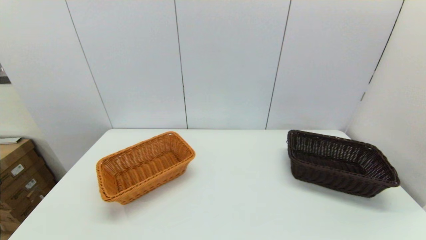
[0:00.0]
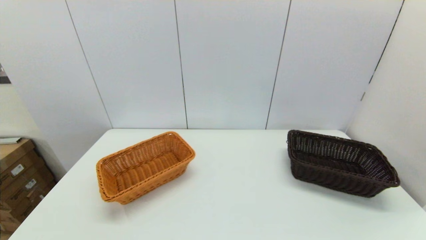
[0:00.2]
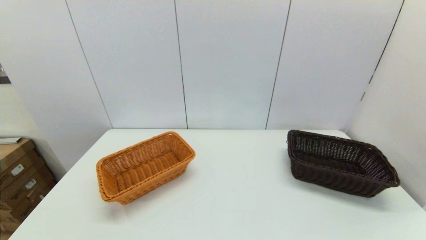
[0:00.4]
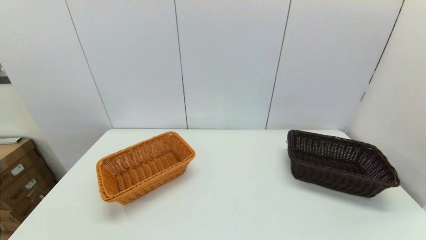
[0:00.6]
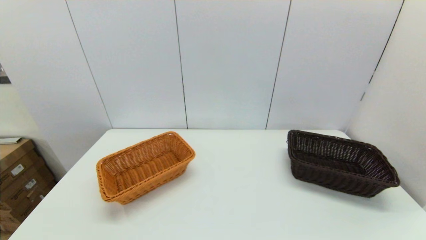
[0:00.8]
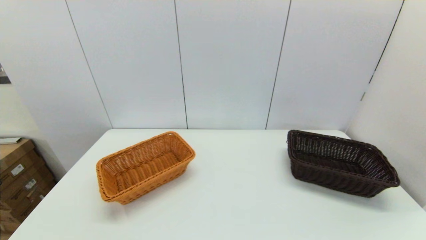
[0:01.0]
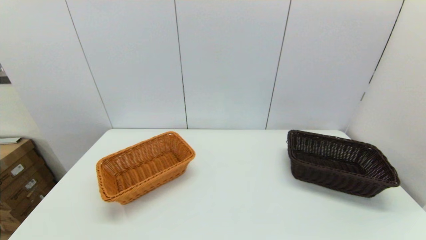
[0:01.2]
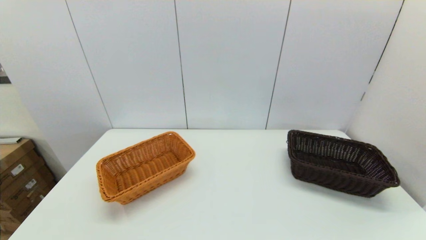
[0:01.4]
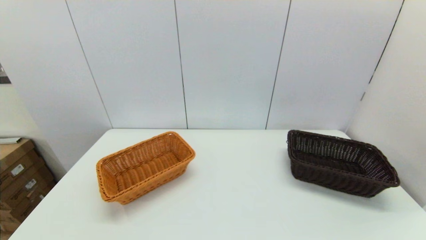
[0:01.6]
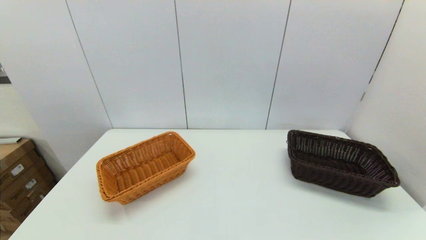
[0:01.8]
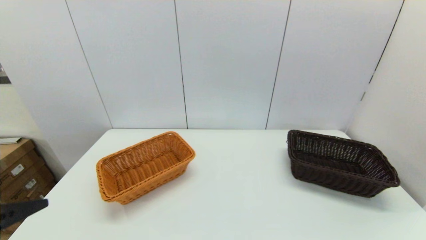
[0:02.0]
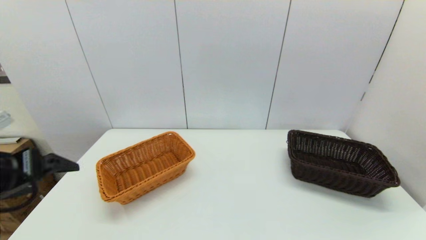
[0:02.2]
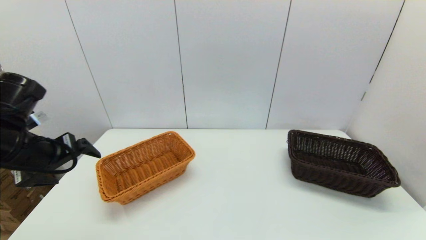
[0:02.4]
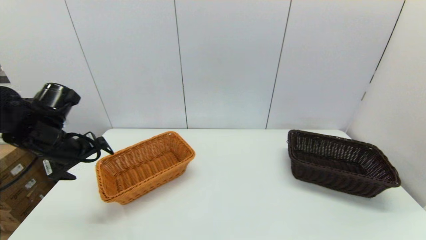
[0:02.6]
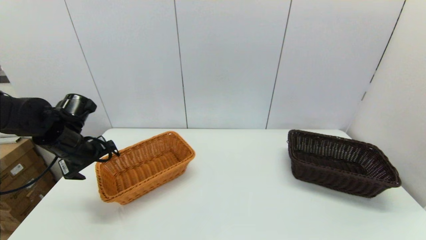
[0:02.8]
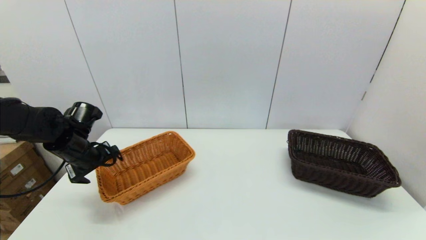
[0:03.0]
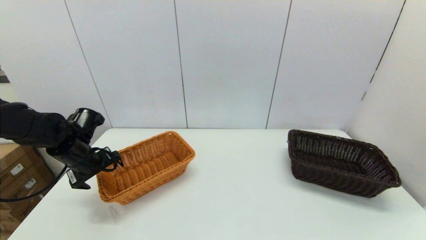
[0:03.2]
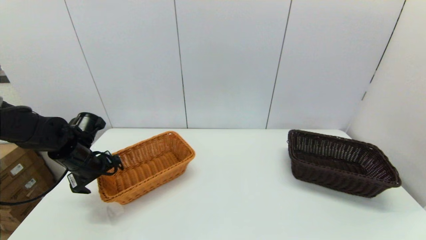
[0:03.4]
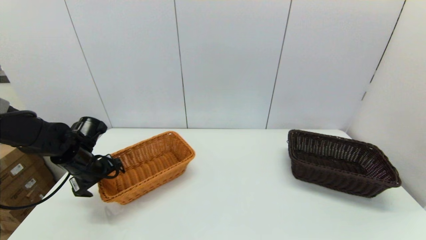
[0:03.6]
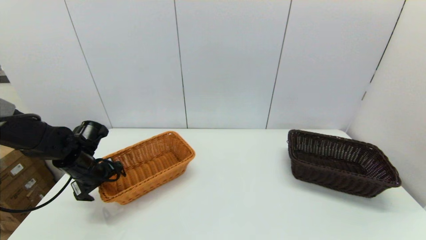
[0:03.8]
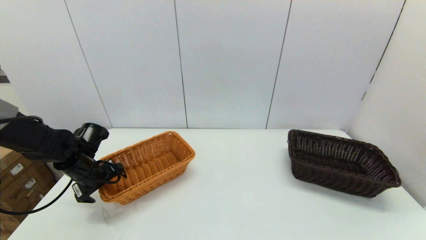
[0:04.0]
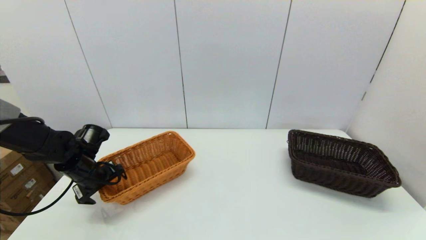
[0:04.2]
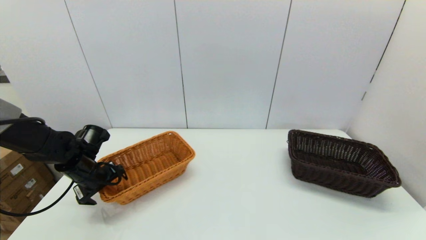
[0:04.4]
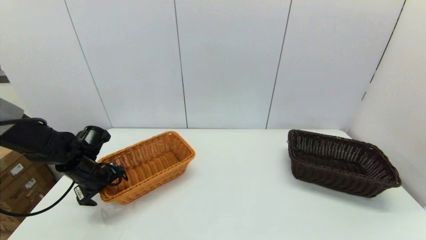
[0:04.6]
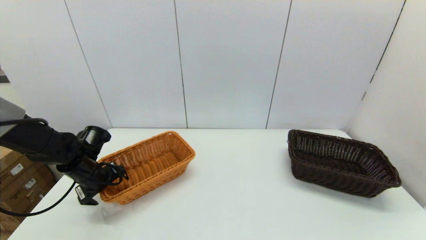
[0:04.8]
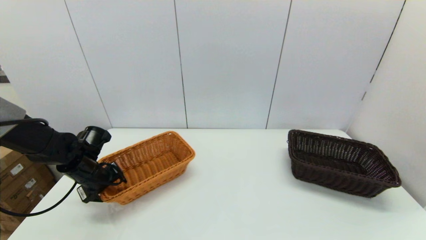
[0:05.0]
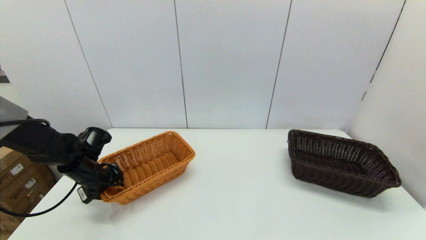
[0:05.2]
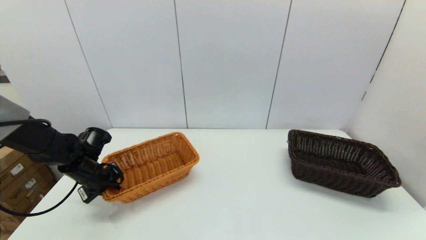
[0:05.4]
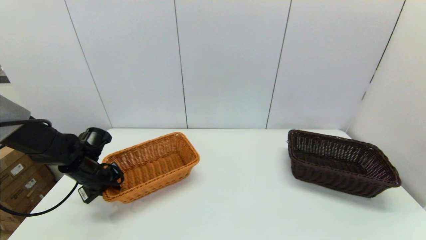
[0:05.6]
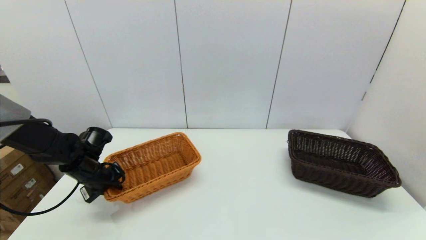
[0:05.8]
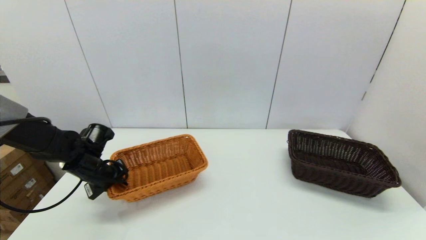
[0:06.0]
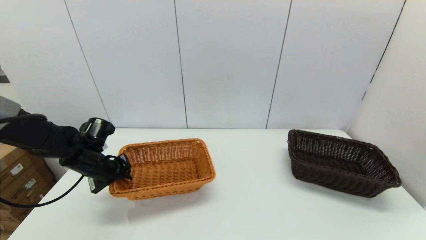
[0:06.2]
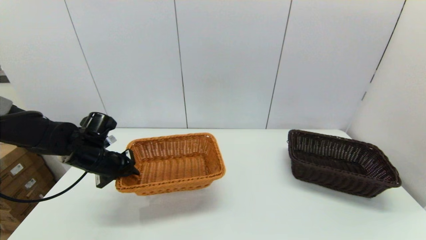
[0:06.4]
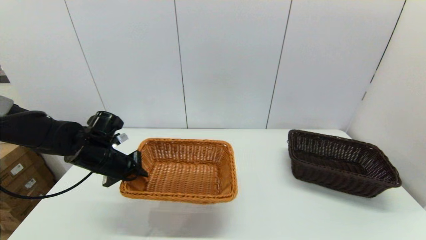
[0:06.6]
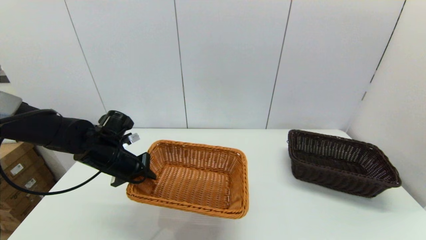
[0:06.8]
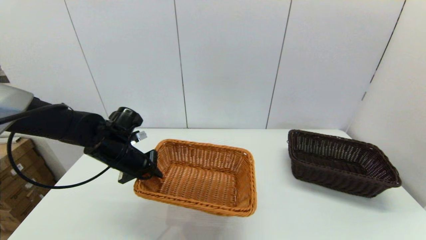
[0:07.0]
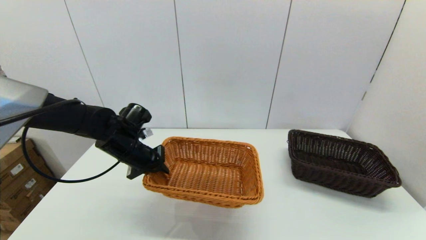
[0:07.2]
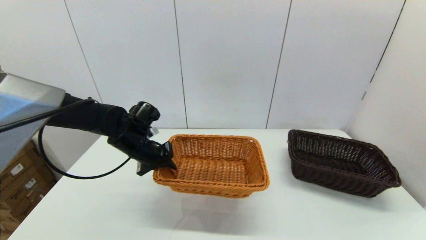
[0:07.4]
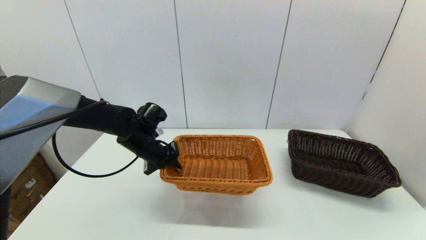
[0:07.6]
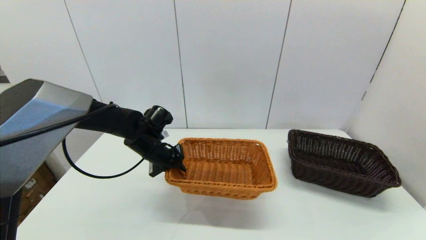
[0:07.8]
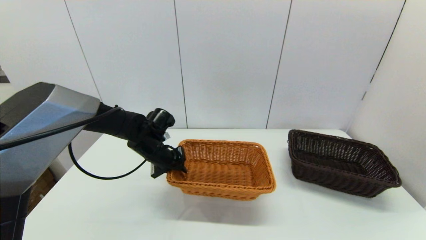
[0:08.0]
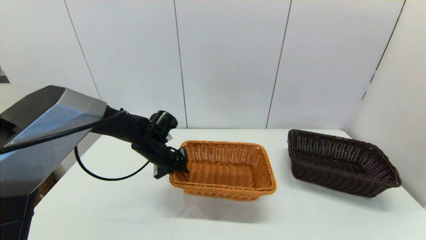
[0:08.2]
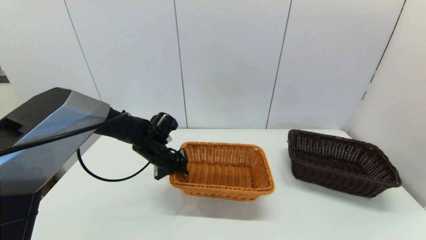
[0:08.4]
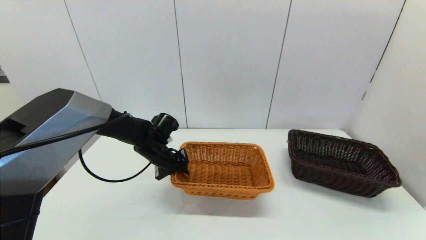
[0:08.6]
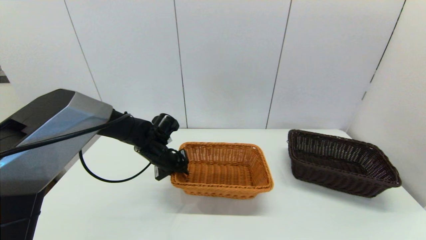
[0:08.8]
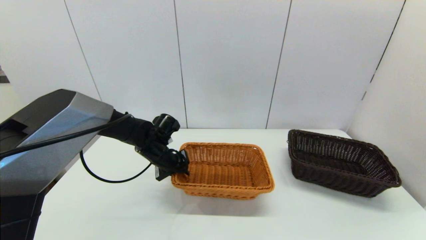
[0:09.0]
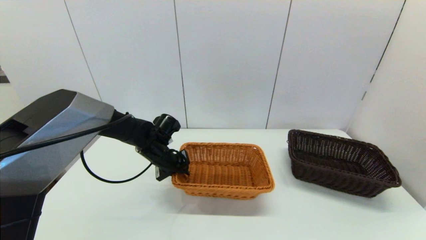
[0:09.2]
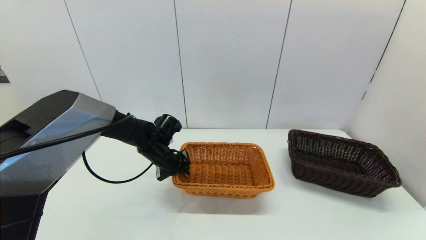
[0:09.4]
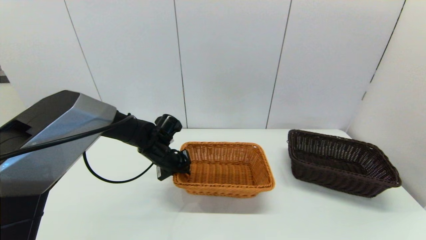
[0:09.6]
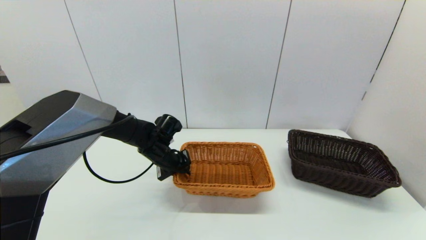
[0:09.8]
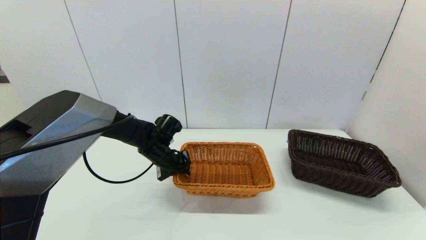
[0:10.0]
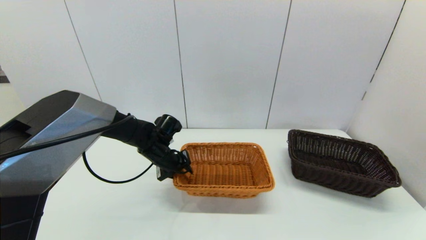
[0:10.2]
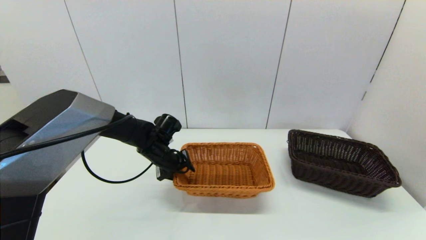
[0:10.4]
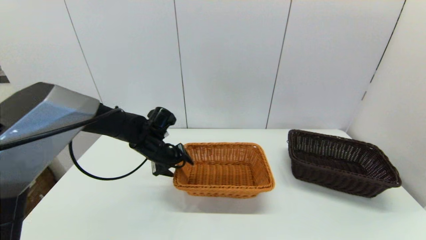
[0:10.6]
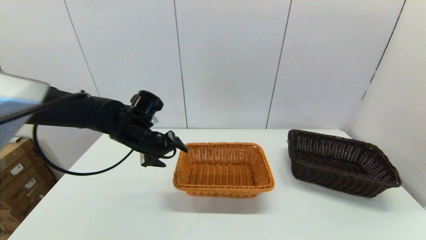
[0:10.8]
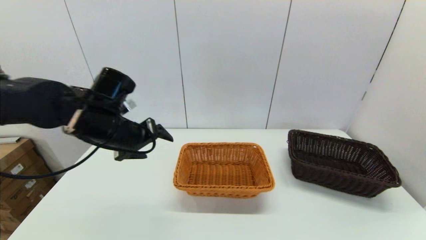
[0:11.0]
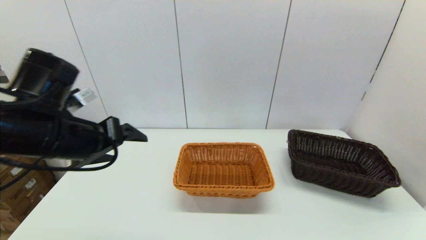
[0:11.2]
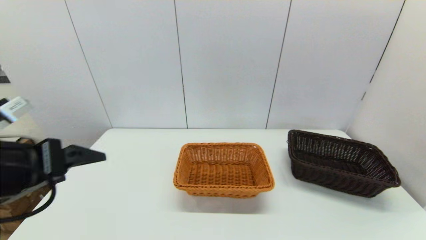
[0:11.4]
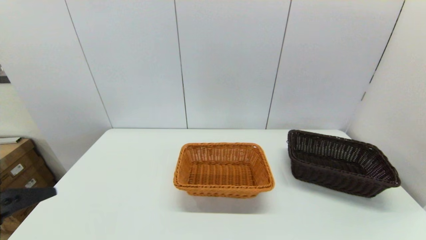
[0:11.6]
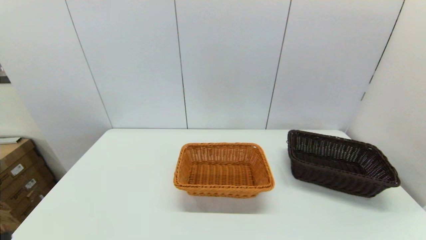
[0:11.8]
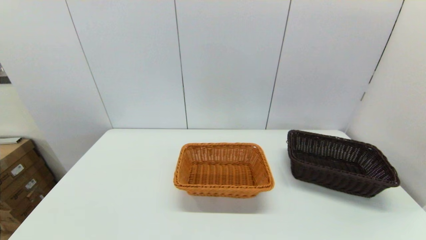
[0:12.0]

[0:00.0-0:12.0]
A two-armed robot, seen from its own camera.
Task of the whole recording: stack a basket on top of another basket.
Step, 0:02.0 to 0:05.2: Grasp the light basket with the left gripper.
Step, 0:05.6 to 0:10.6: Place the light basket on the middle of the table with the left gripper.
0:01.6 to 0:03.0: The left gripper is displaced forward by roughly 35 cm.
0:03.0 to 0:04.4: The left gripper goes some 5 cm downward.
0:04.4 to 0:06.0: The left gripper closes its fingers.
0:06.0 to 0:07.6: The left gripper shifts roughly 15 cm to the right.
0:07.6 to 0:09.0: The grippers move only a little.
0:09.0 to 0:10.4: The left gripper opens up.
0:10.4 to 0:12.0: The left gripper shifts roughly 40 cm backward, and opens its fingers.

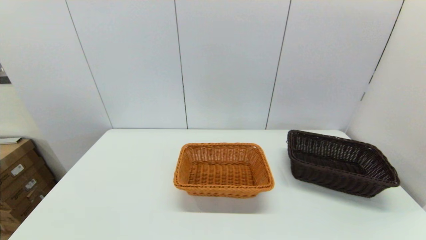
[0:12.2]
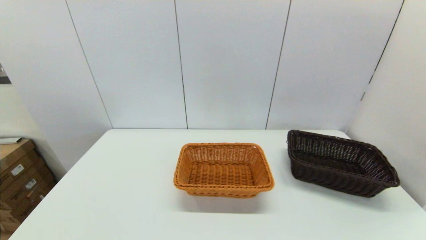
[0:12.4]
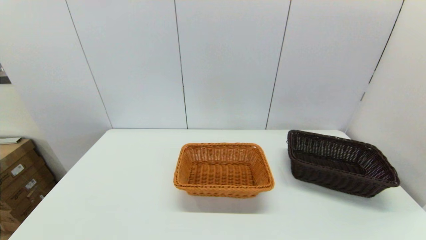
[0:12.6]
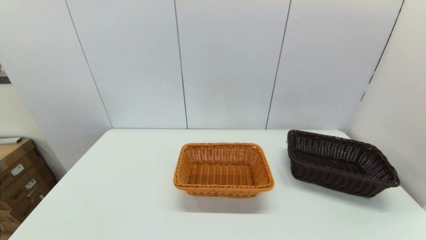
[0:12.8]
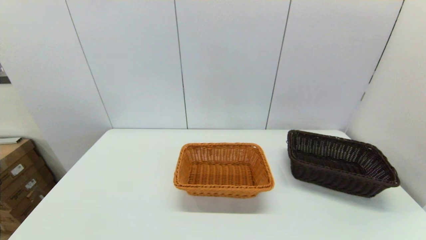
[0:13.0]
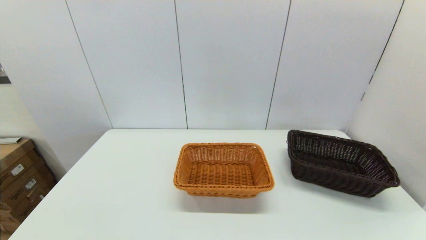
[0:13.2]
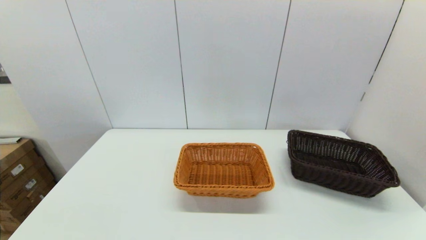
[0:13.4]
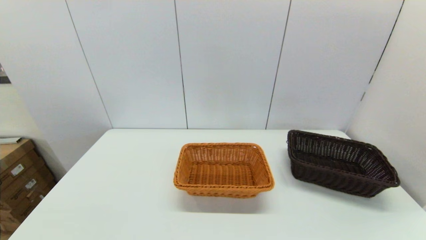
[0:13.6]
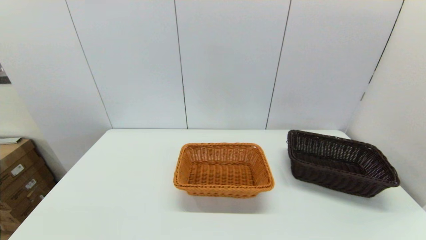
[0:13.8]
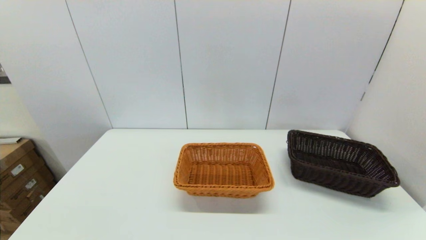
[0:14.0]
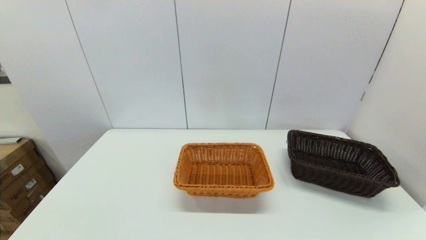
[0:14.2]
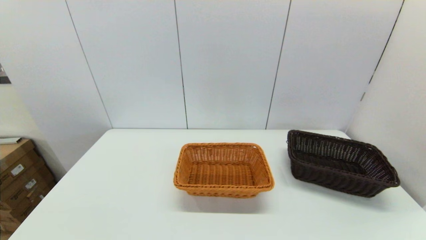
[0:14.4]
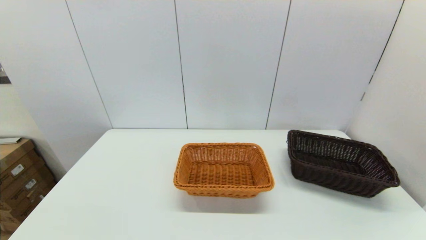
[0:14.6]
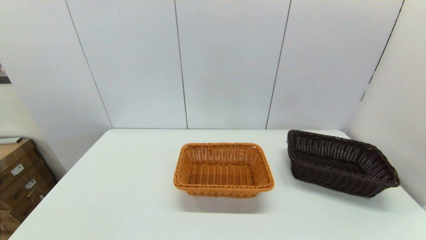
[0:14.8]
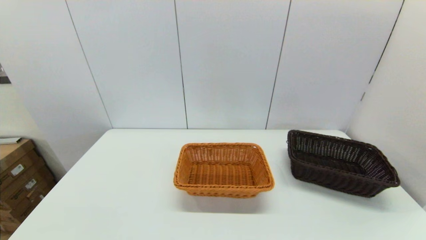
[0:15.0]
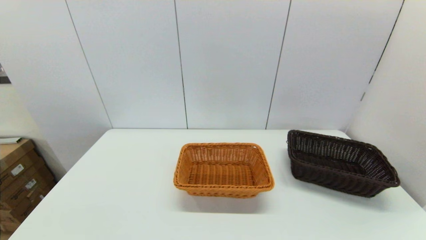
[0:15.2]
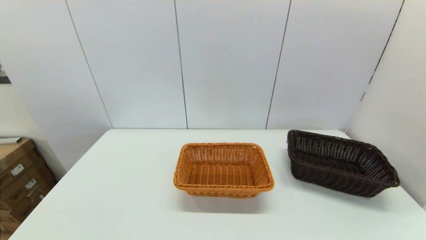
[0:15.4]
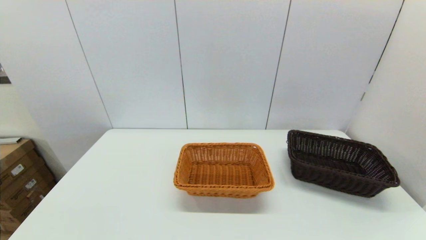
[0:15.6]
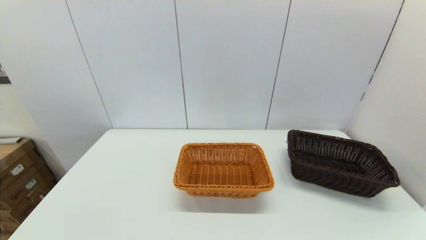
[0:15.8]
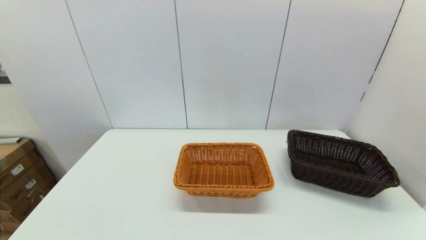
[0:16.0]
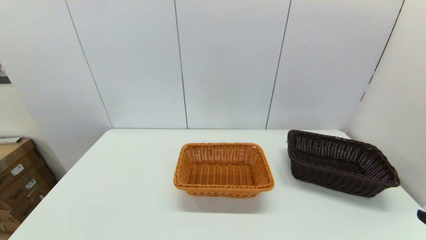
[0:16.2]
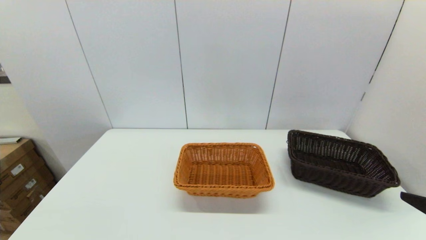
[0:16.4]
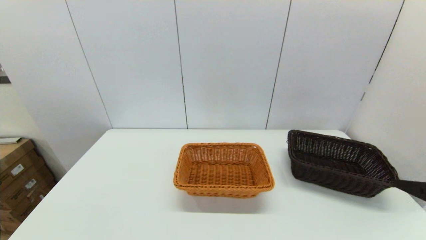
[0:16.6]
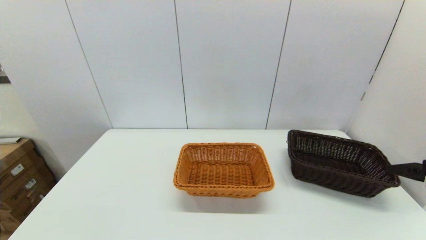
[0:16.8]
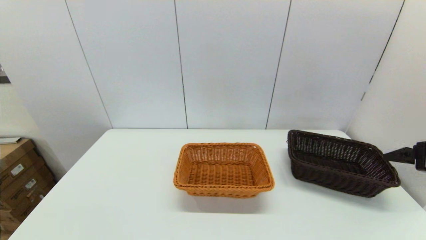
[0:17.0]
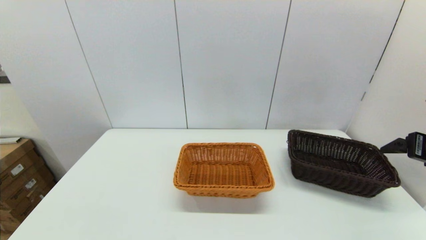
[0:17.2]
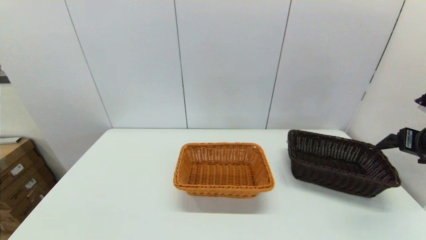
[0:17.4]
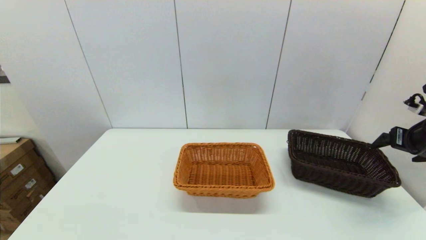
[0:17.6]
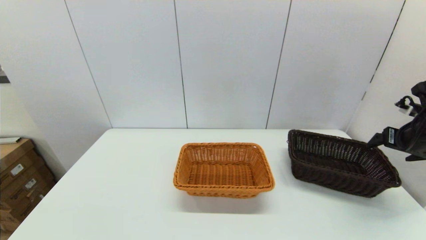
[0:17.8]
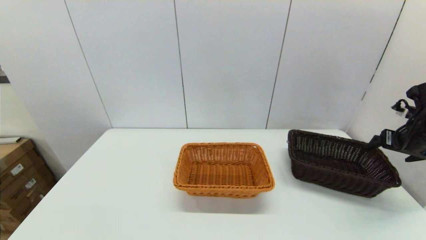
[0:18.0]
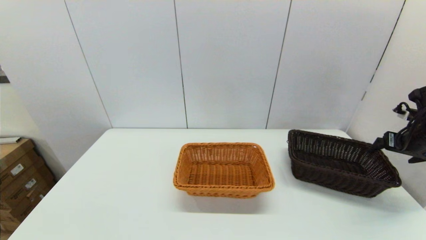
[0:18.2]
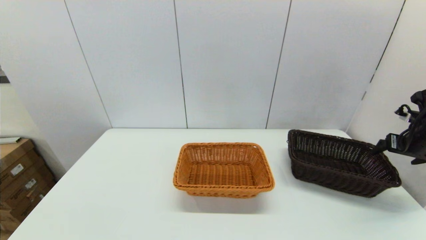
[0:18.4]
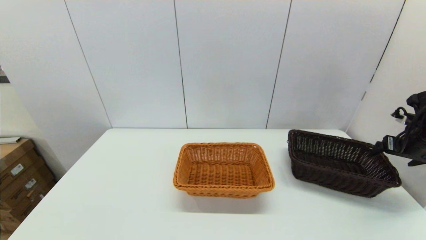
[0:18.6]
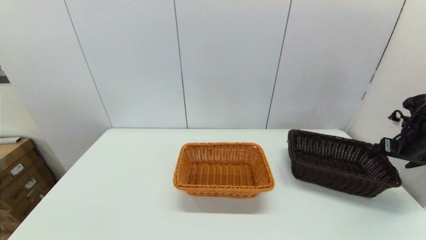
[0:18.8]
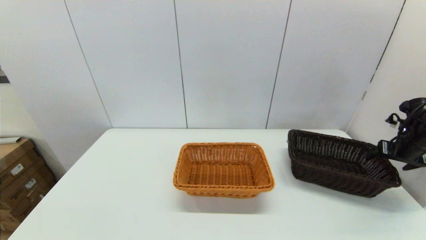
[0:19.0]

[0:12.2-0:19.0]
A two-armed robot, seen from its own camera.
Task of the whole recording: stack a basket on top of another basket.
0:16.2 to 0:17.6: The right gripper shifts roughly 25 cm forward and to the right.
0:17.6 to 0:19.0: The right gripper shifts roughly 10 cm downward, forward and to the right.
